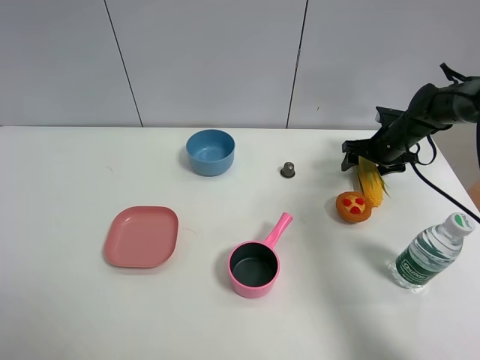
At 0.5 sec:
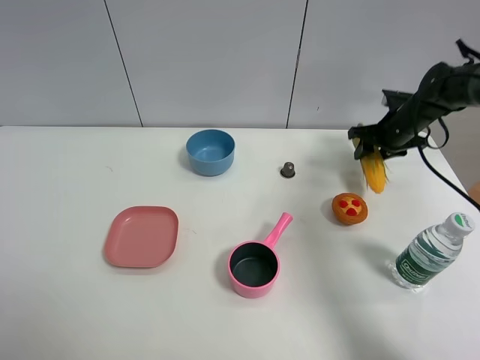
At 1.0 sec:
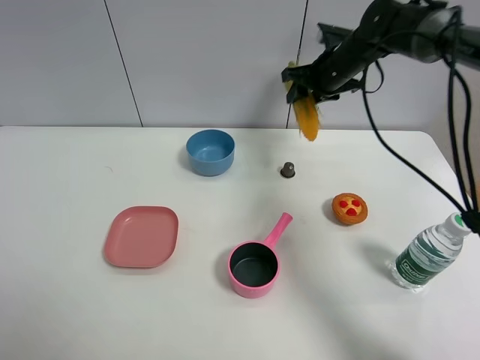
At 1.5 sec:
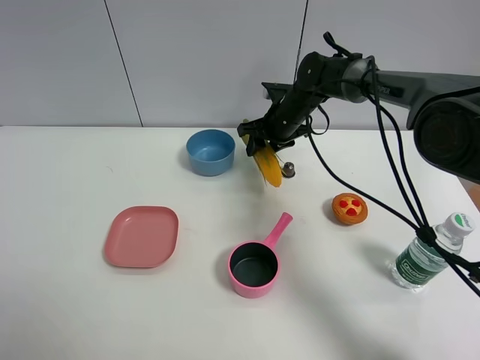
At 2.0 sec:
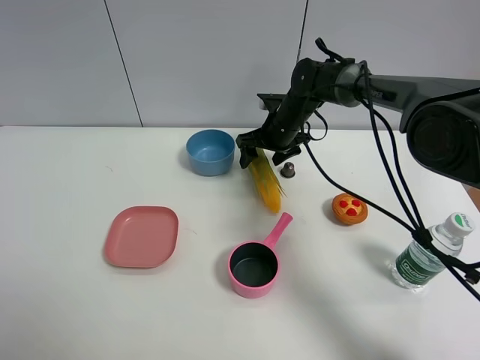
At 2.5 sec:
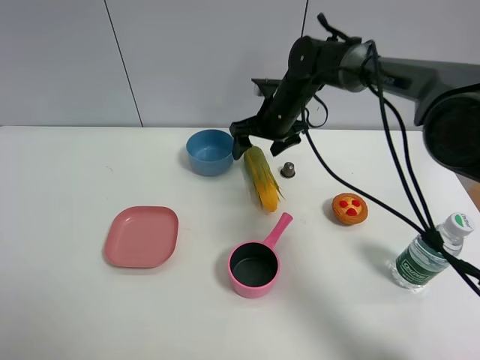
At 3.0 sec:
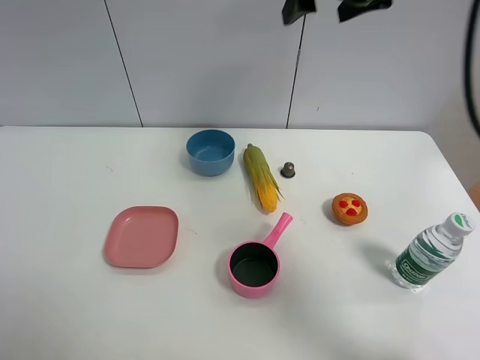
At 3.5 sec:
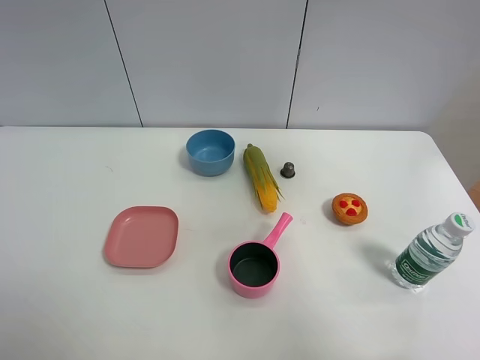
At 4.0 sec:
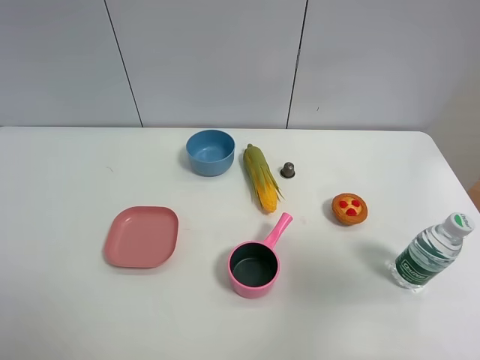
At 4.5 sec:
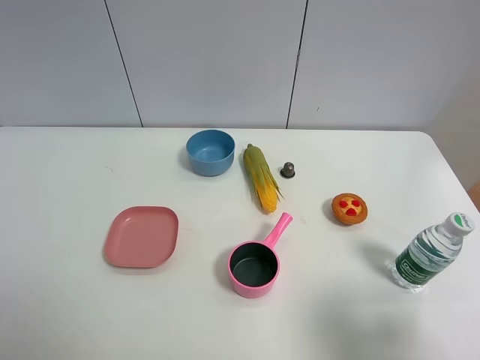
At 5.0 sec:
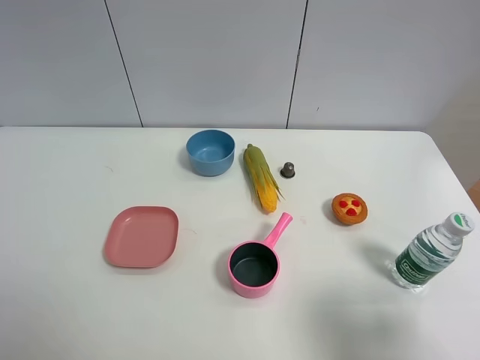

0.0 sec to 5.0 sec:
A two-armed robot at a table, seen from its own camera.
Task of the whole recording: the gripper move the object.
Step, 0.5 sec to 2.0 sec: Place the corn on the table with the right gripper.
0.0 sec to 2.5 sec: The right gripper moves to the left, about 25 cm, and closes, then opens again.
2.5 sec to 5.0 sec: The right gripper heads backward and to the right, covering about 50 cm.

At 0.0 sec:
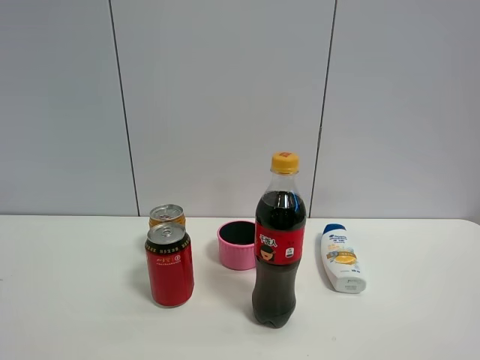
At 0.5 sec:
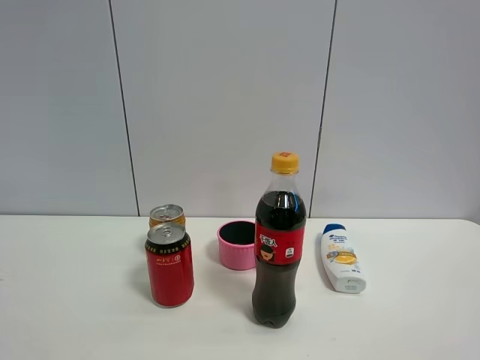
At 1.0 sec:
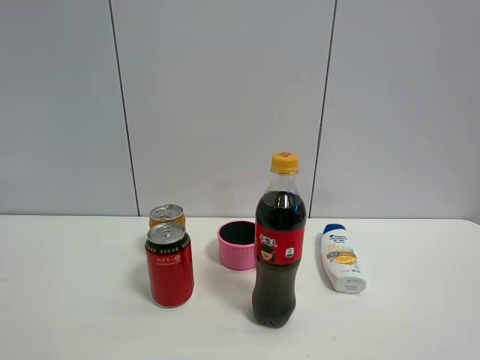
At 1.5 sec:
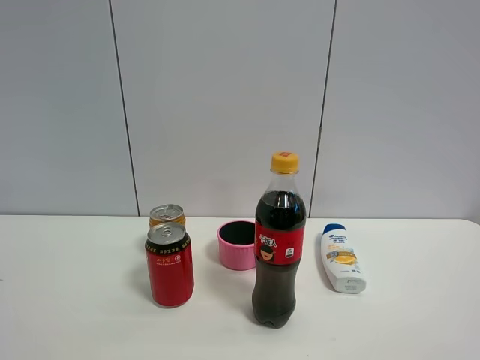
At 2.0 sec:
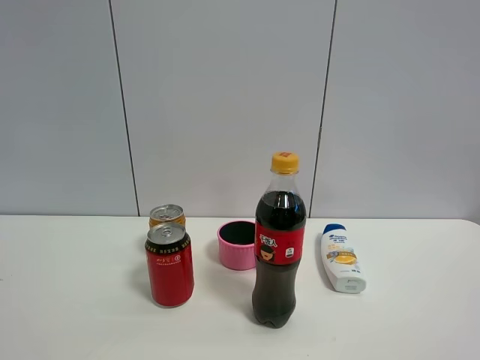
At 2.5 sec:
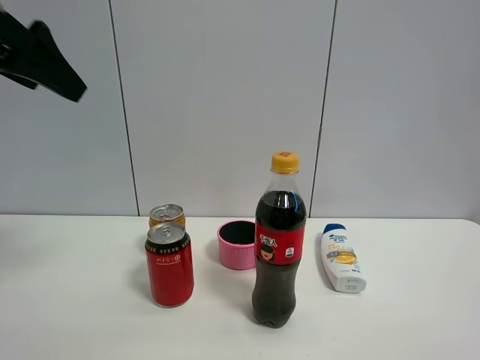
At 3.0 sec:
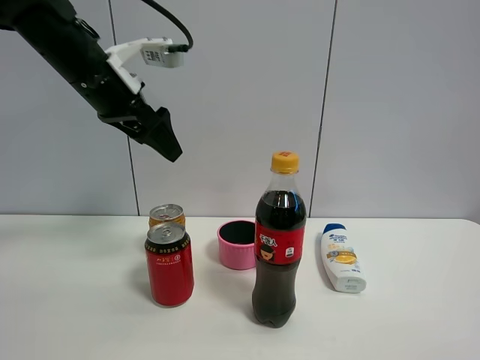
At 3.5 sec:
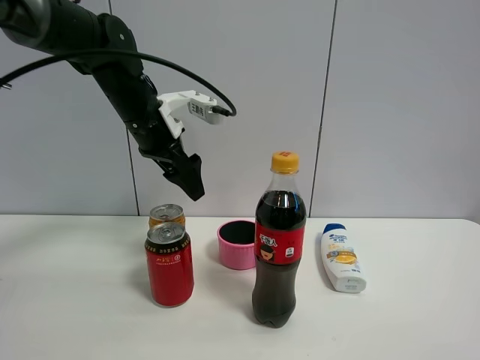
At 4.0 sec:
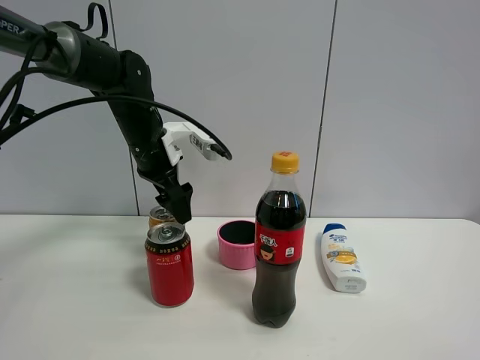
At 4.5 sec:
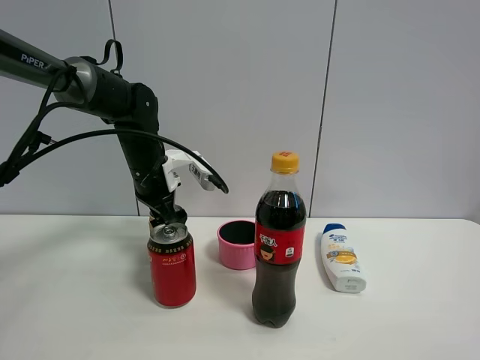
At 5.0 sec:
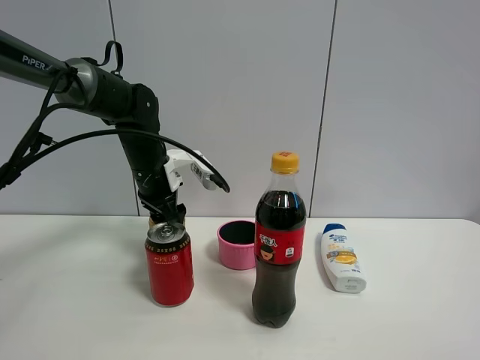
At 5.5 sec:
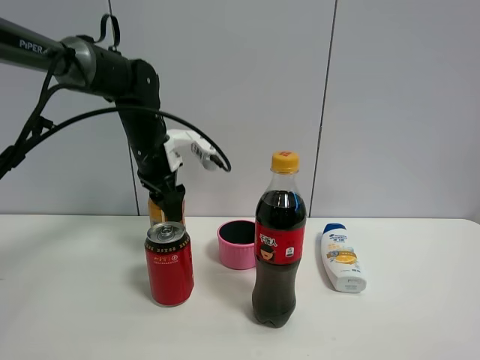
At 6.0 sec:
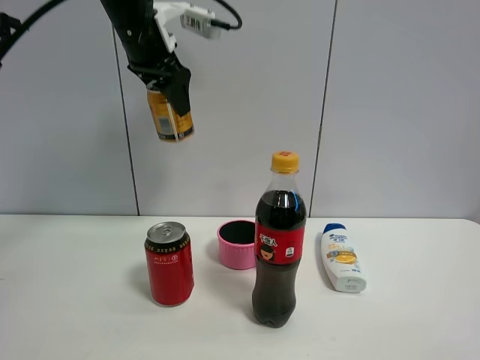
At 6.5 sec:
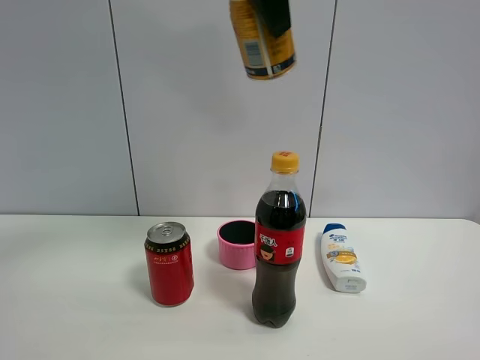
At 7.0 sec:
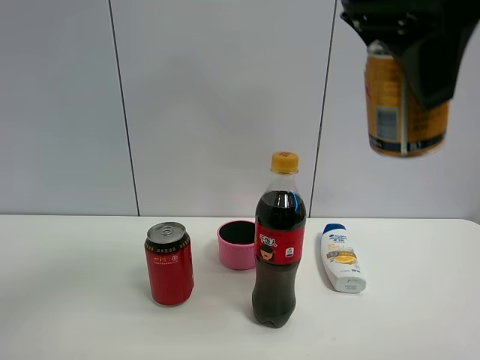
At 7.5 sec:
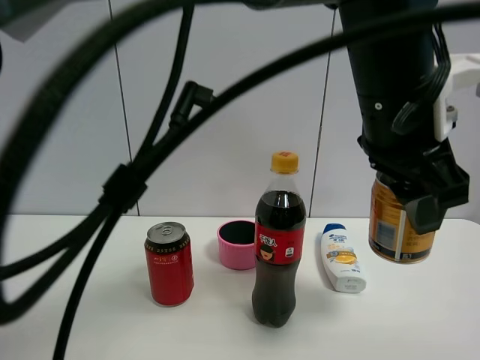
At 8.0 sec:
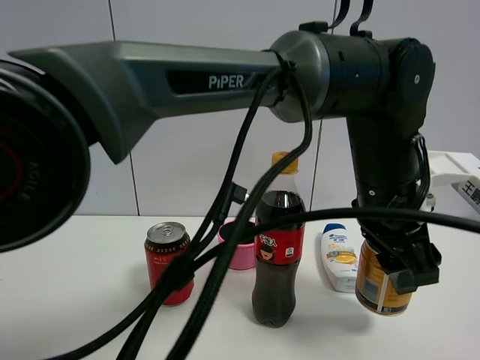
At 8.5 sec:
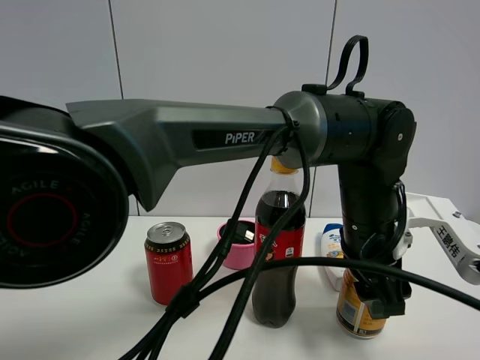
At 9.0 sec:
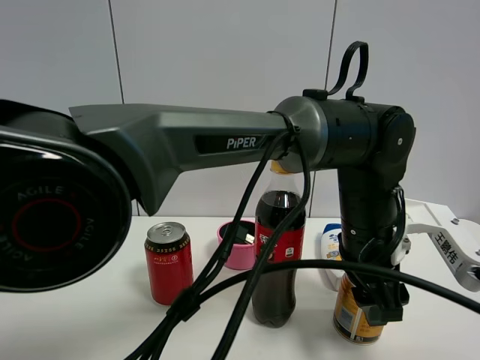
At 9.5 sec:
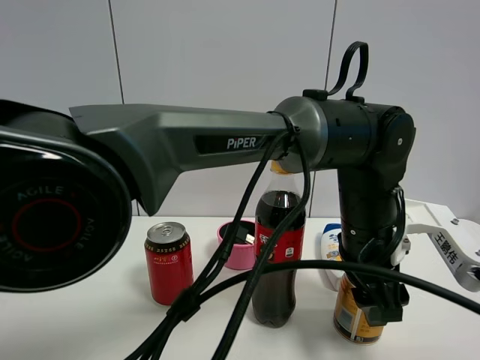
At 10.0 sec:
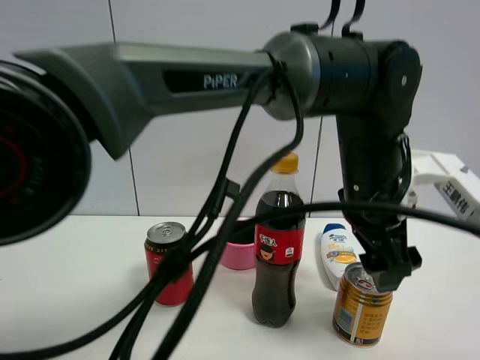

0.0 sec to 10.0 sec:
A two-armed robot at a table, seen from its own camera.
Task of the whole recording: the gripper move the object.
Step, 0.0 sec to 5.0 sec: Grasp the red bull with the left gripper.
Step, 5.5 sec to 9.5 sec: Place the red bull on the table with the left gripper.
2.0 sec to 4.0 sec: The left gripper travels forward, downward and to the right by approximately 50 cm.
4.0 sec to 6.0 sec: The left gripper goes roughly 20 cm upward, and closes.
6.0 sec to 8.0 sec: The left gripper heads to the right, downward and backward, covering approximately 35 cm.
8.0 sec to 10.0 sec: The left gripper opens its fingers.

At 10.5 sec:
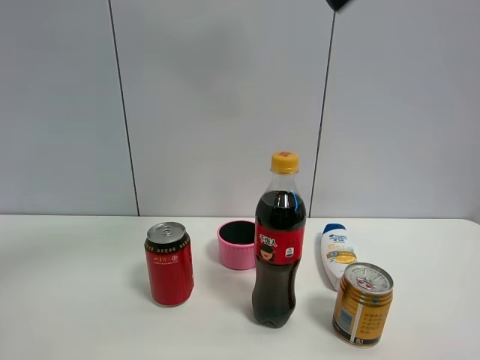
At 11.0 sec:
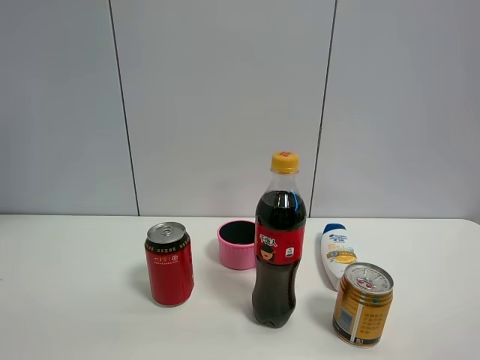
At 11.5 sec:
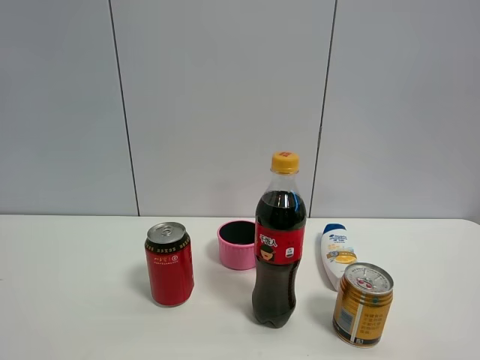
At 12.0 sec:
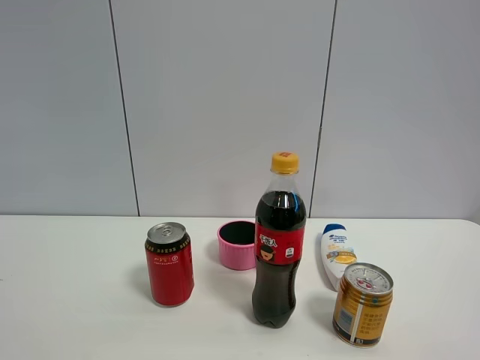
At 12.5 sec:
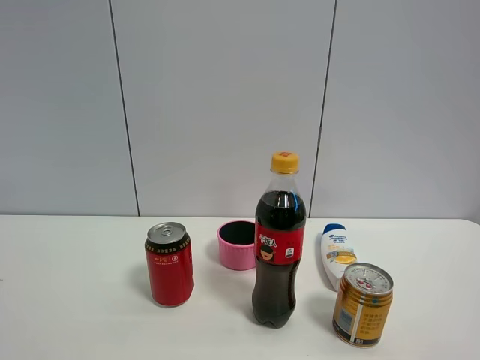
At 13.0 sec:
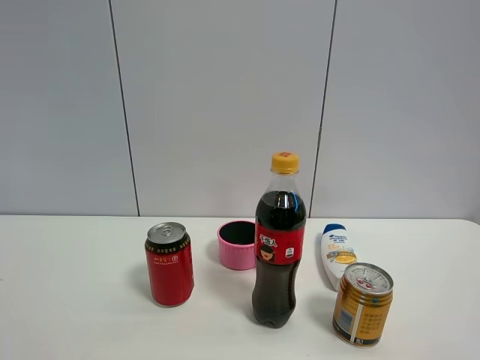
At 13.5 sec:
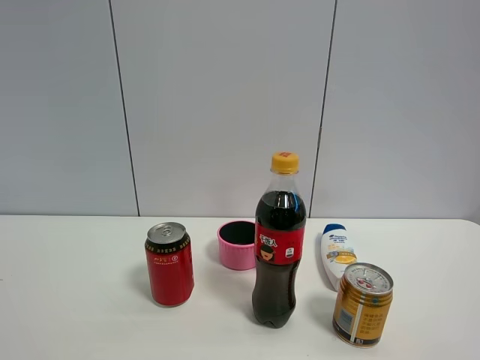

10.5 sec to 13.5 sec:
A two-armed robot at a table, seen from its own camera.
Task of the whole recording: the gripper move the object.
10.5 sec to 12.0 sec: The left gripper travels to the left and backward by roughly 40 cm.

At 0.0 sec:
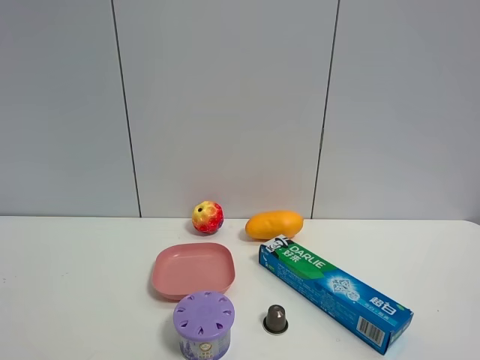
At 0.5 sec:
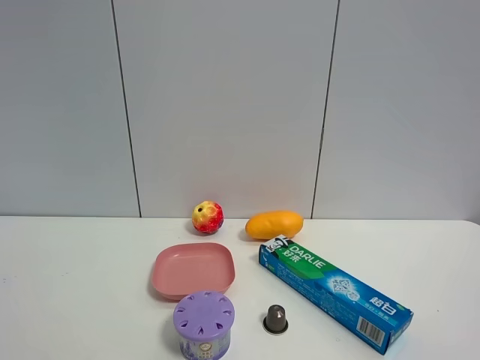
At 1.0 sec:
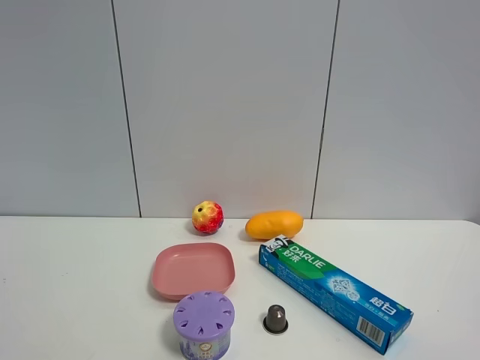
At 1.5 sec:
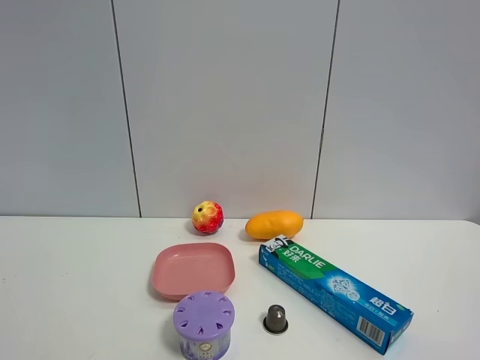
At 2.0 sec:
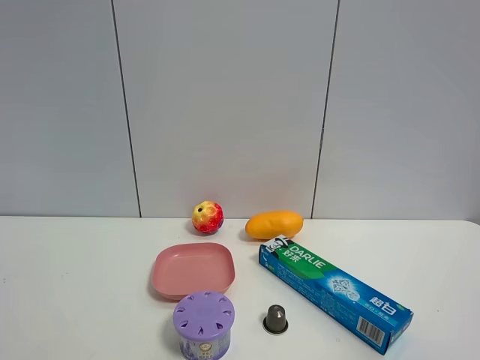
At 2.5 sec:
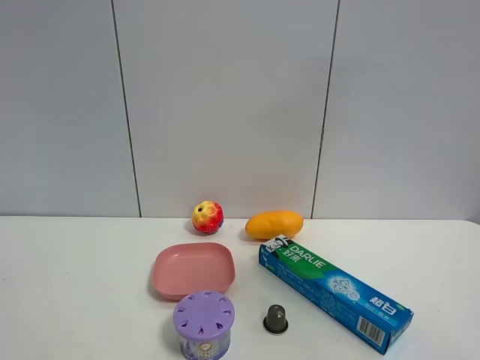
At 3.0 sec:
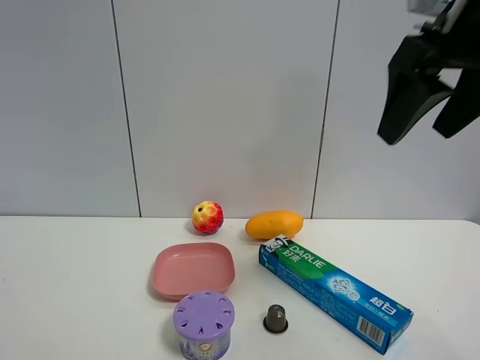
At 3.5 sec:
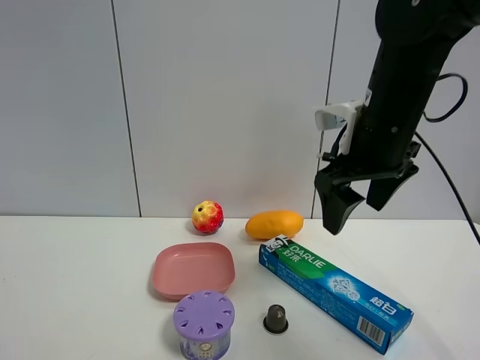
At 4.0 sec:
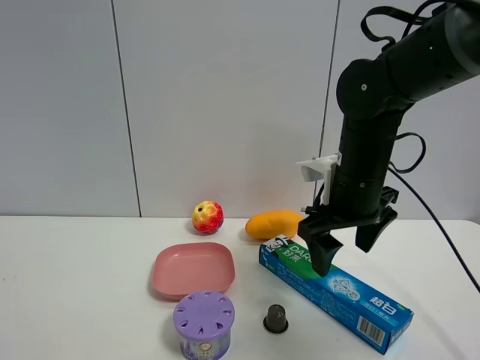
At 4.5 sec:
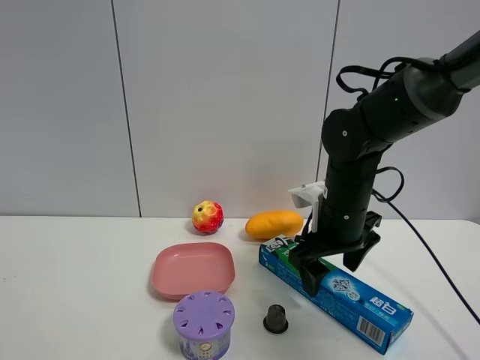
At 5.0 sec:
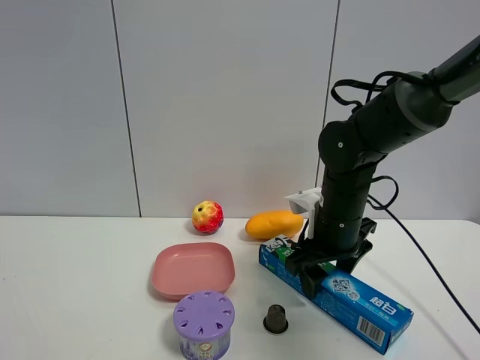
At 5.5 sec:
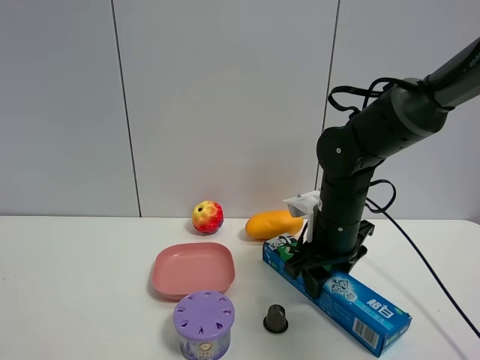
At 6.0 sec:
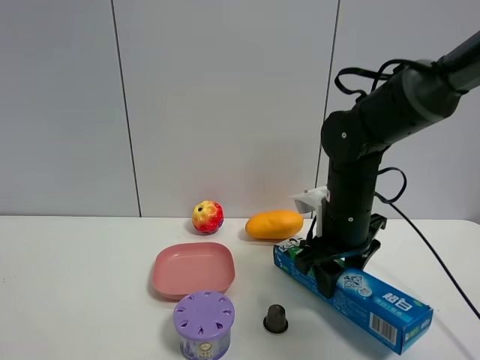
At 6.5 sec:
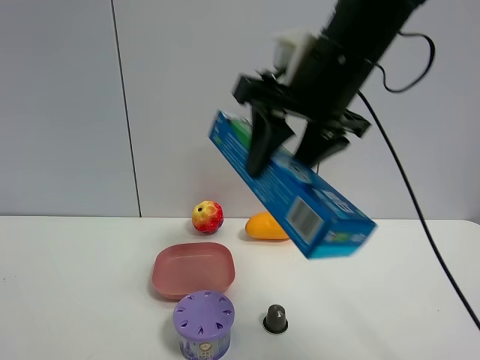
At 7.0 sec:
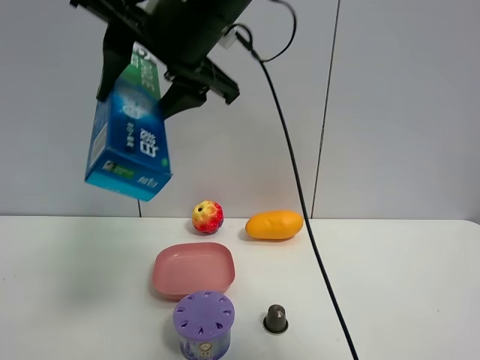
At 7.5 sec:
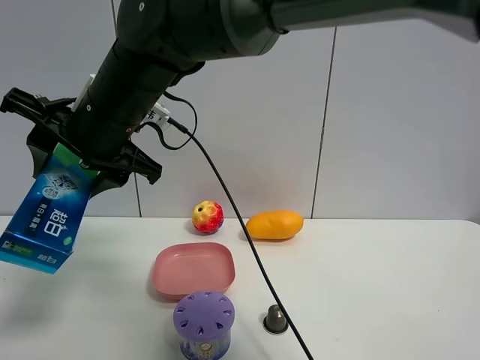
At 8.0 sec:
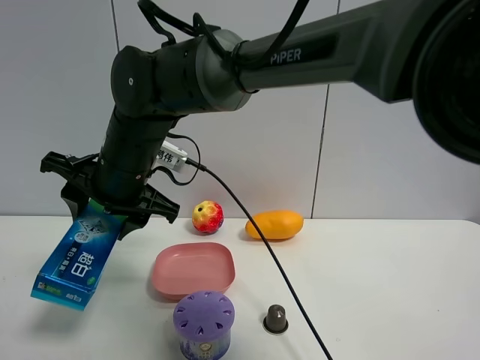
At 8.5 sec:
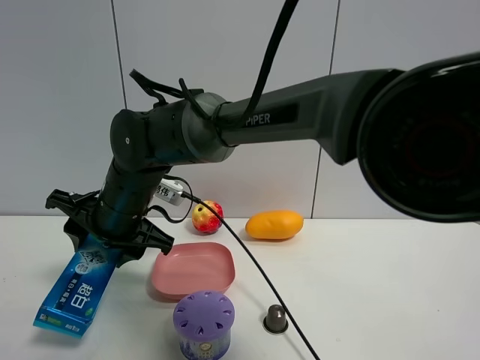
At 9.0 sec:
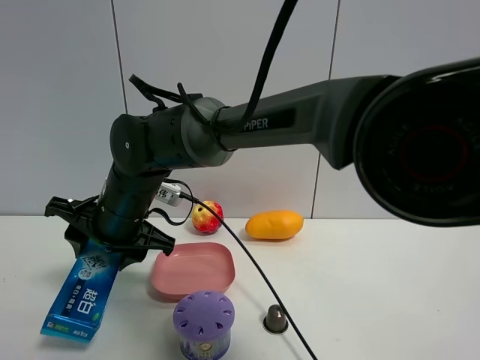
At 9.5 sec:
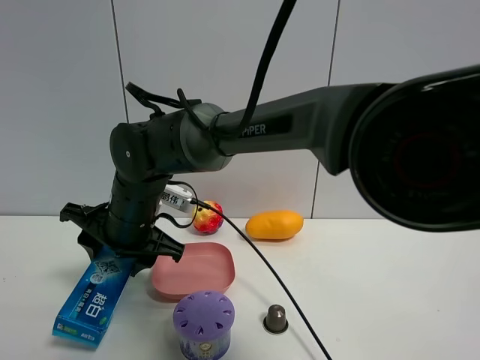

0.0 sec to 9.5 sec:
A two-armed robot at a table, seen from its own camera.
Task of the whole recording: the gripper move the object.
Step, 0.0 sec to 5.5 sec: Grasp the toothpaste with the right gripper.
2.0 sec to 4.0 sec: The right gripper heads forward and downward, covering roughly 35 cm.
4.0 sec to 5.5 sec: The right gripper goes about 5 cm downward, and closes up.
5.5 sec to 7.5 sec: The right gripper moves to the left and upward, roughly 30 cm.
7.5 sec to 9.5 sec: The right gripper shifts some 10 cm downward.
